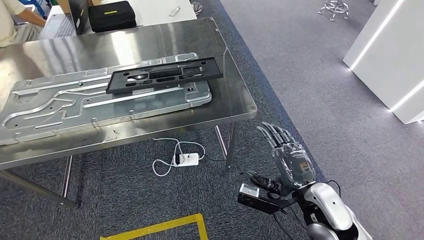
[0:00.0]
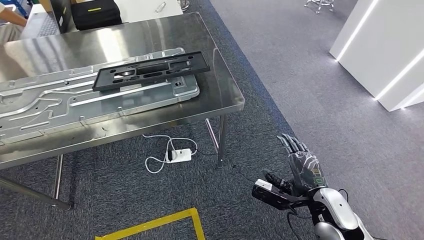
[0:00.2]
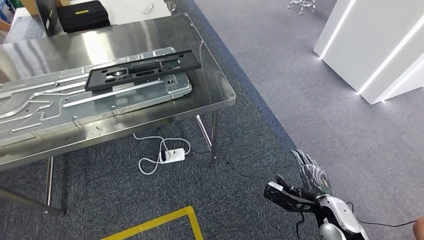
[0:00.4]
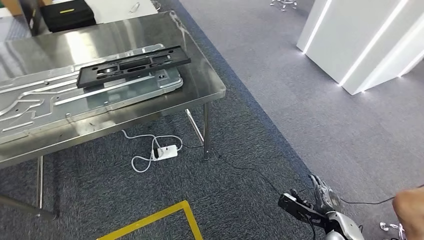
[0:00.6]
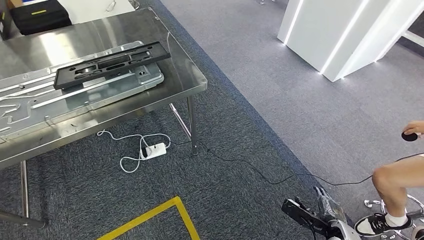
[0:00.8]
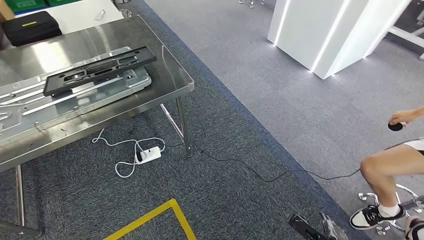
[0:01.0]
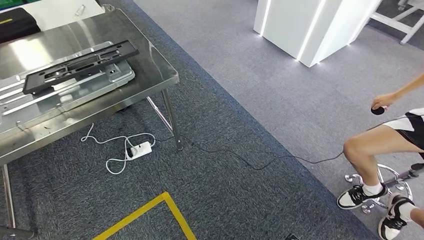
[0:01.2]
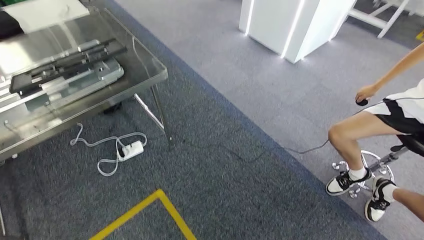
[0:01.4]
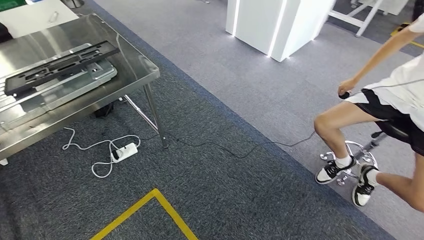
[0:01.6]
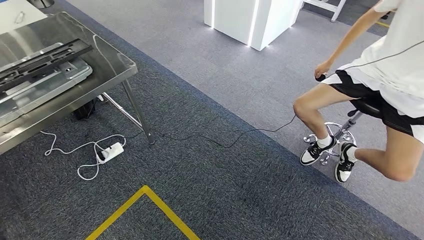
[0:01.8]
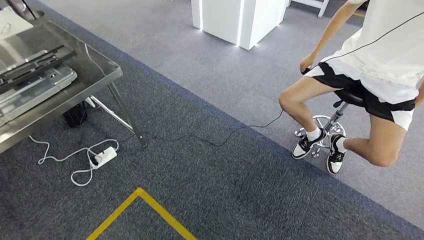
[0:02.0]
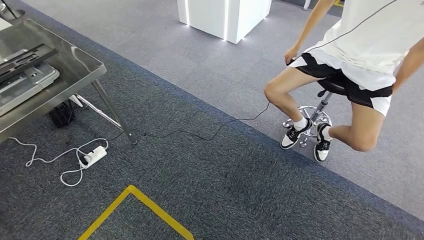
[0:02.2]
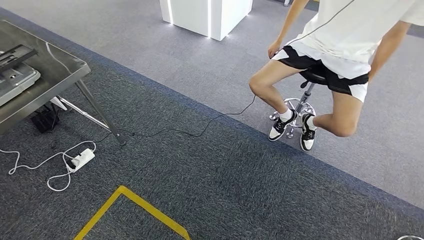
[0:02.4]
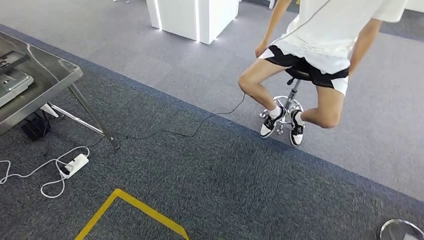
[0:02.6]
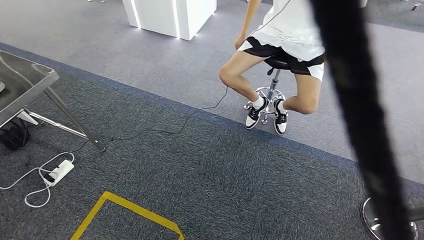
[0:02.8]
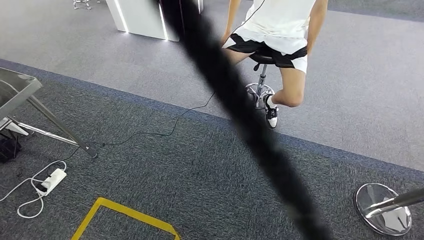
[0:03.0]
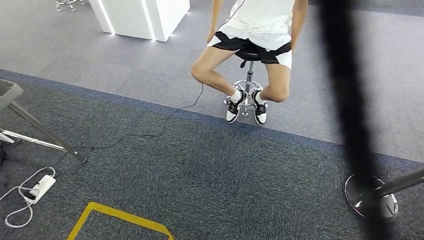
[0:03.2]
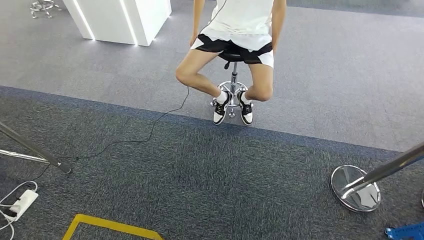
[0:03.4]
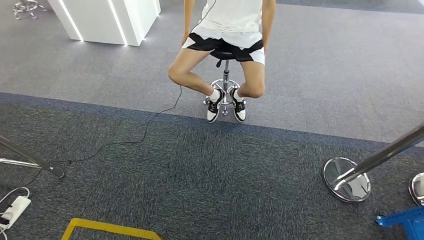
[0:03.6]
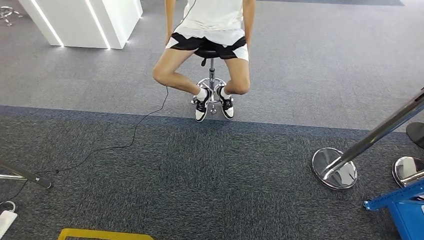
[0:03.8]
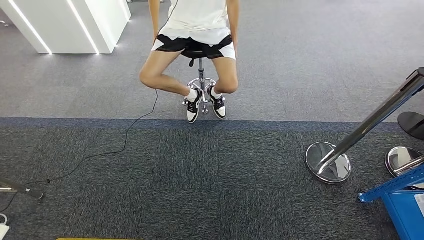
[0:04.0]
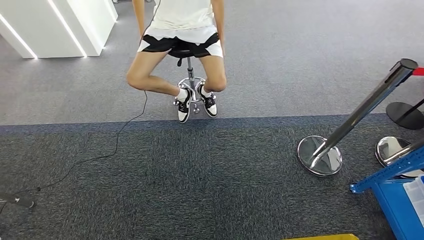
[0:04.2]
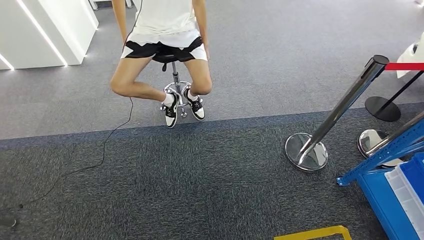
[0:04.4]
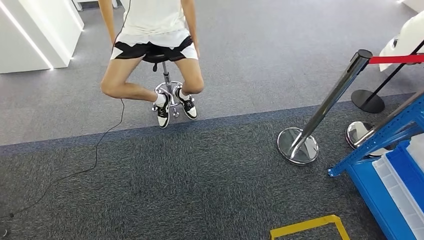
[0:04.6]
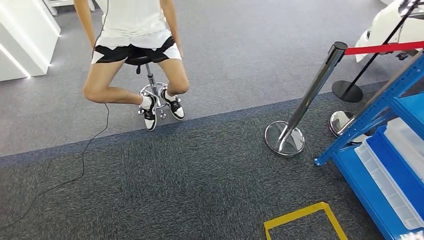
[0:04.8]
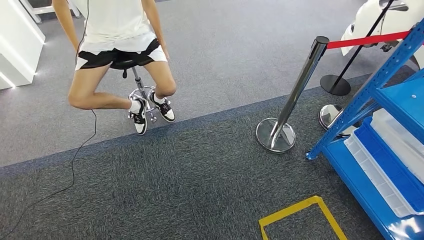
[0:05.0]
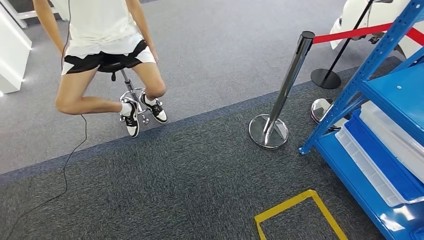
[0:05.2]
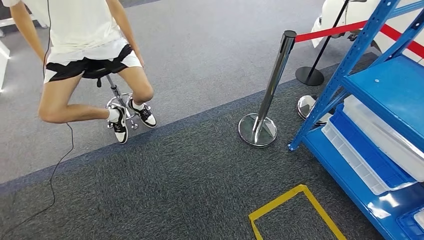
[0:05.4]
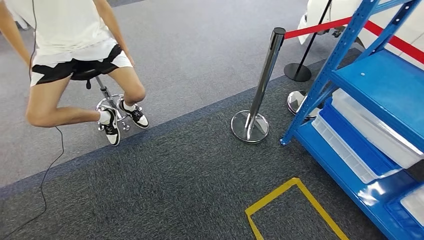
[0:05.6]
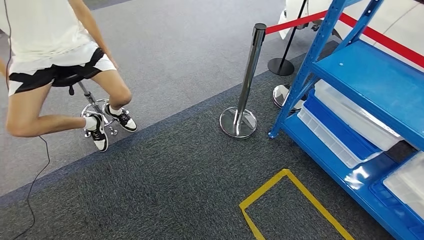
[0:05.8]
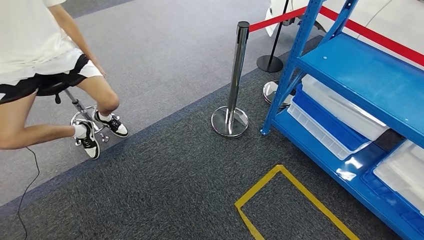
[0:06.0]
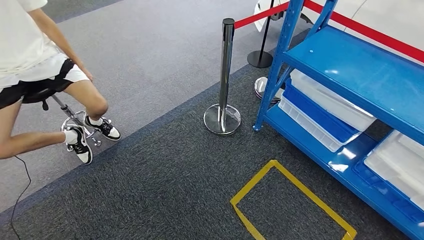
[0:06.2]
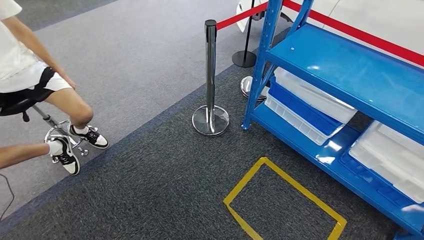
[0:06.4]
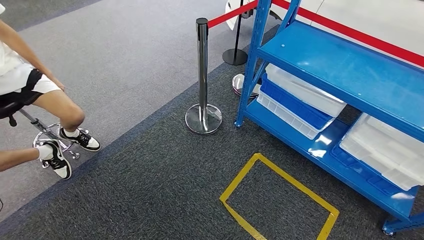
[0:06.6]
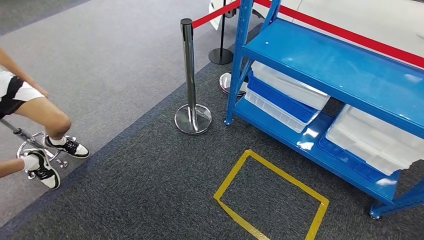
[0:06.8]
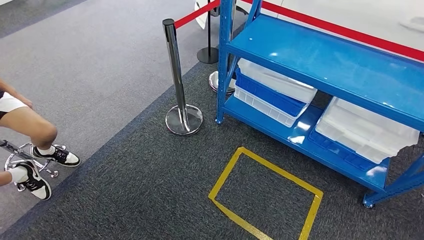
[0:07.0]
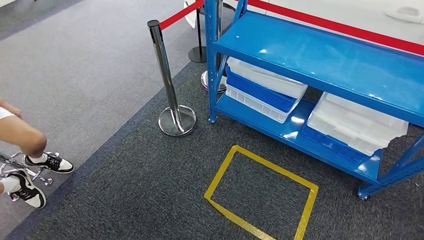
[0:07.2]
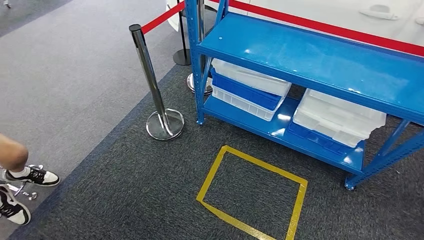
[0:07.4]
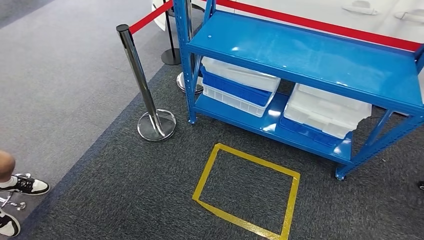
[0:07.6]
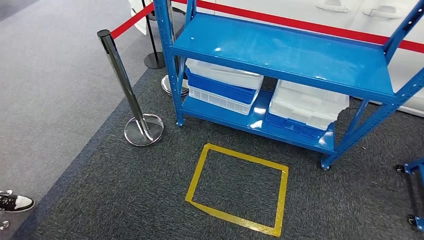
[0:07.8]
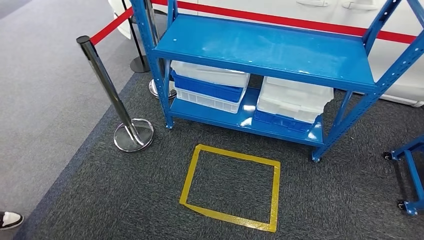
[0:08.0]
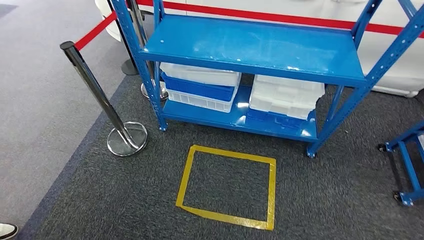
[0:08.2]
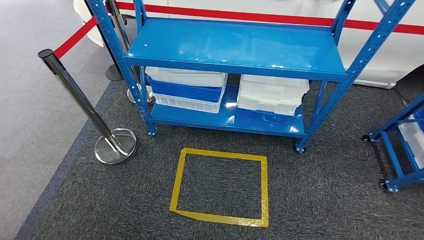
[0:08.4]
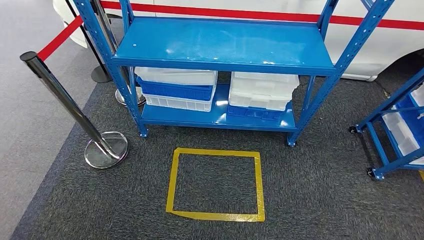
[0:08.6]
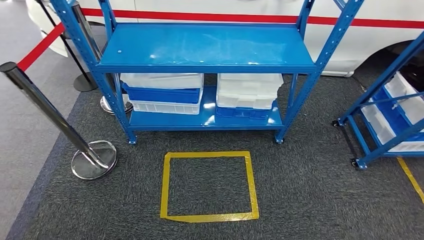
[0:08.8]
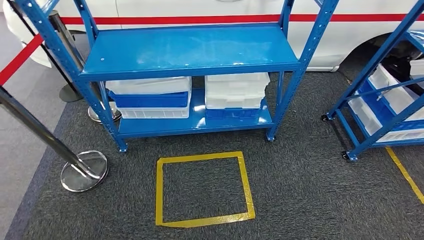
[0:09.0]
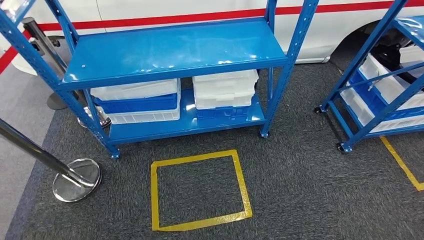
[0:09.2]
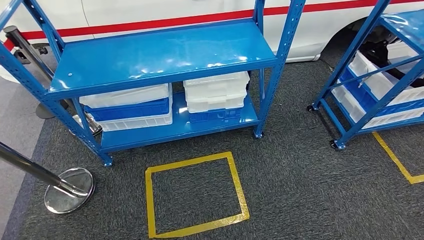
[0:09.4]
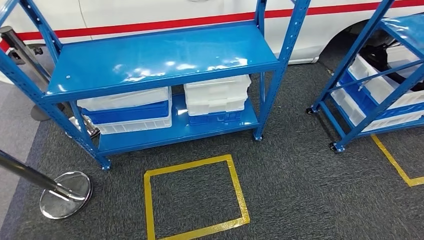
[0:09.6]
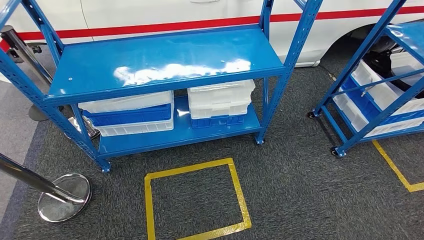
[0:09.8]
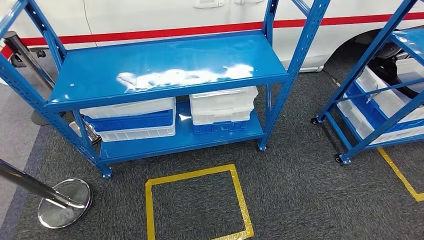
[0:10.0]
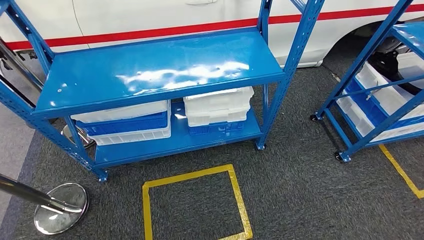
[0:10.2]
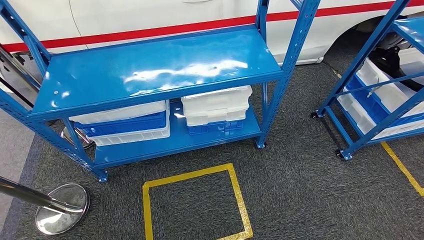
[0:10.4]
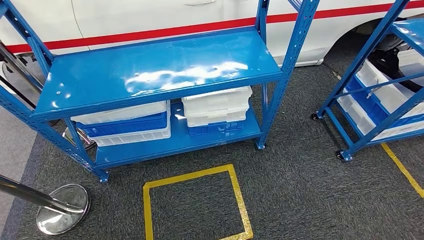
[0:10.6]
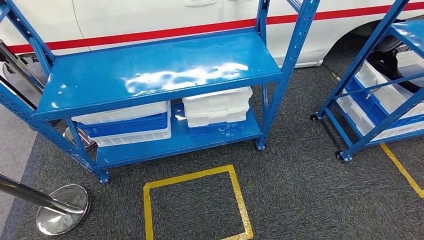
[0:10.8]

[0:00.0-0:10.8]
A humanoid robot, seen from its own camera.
Step, 0:01.8 to 0:10.8: Return to the initial position at the shelf.
